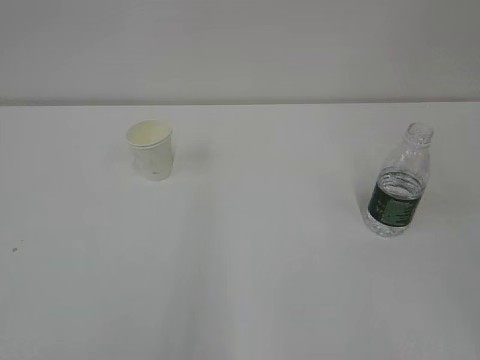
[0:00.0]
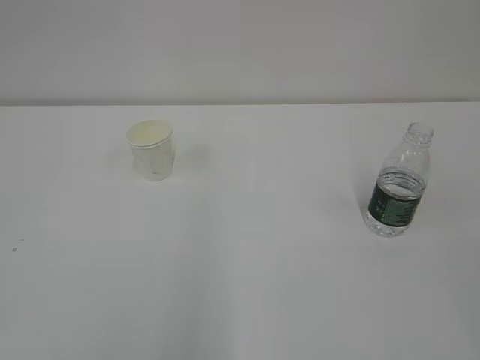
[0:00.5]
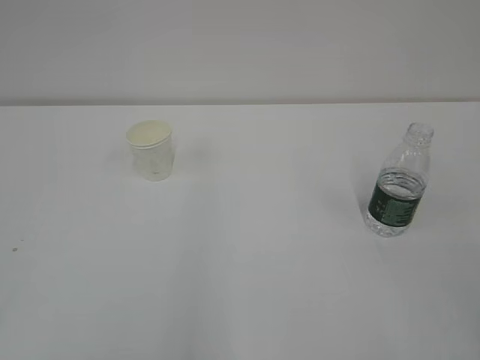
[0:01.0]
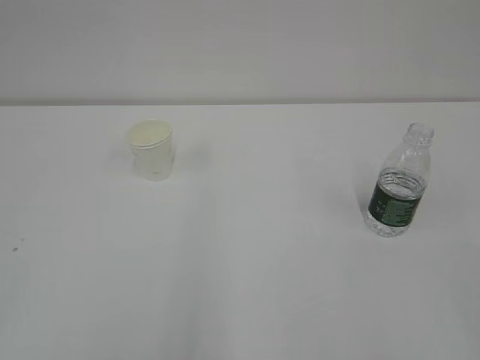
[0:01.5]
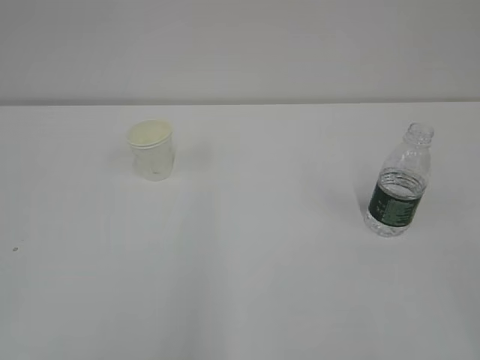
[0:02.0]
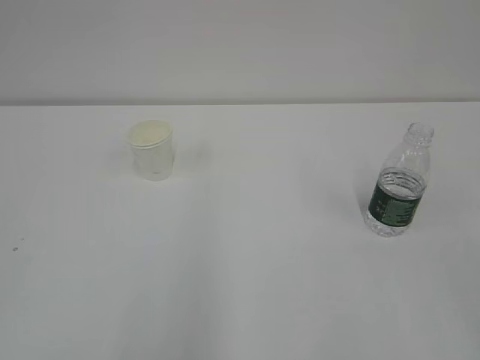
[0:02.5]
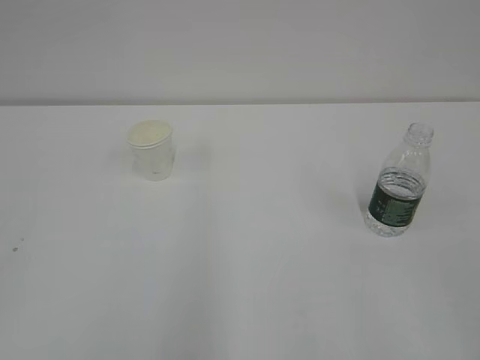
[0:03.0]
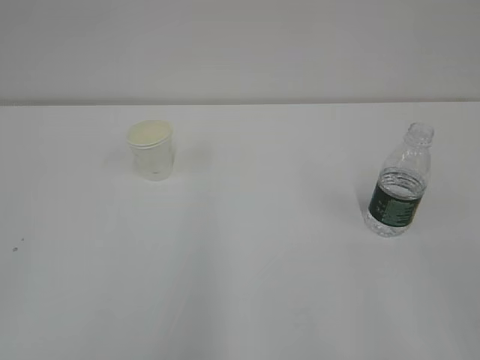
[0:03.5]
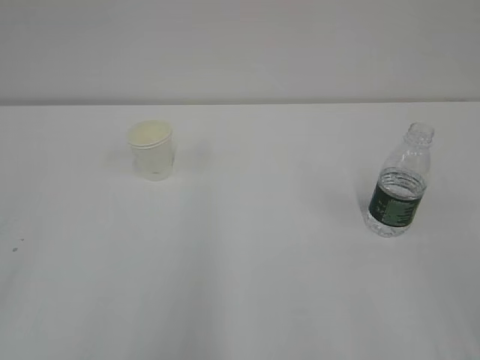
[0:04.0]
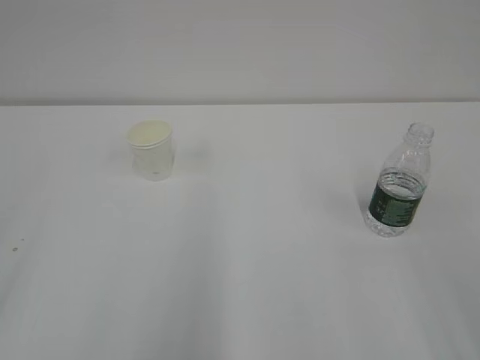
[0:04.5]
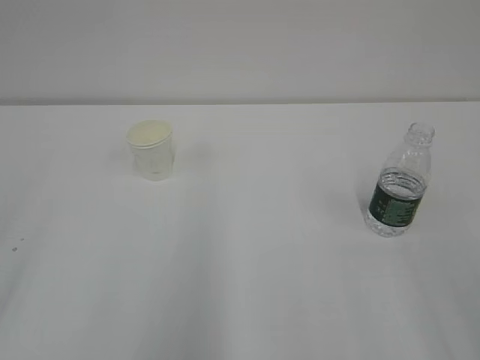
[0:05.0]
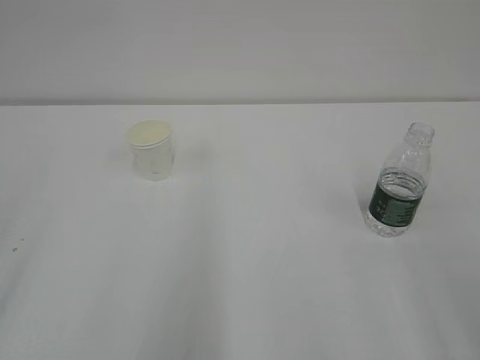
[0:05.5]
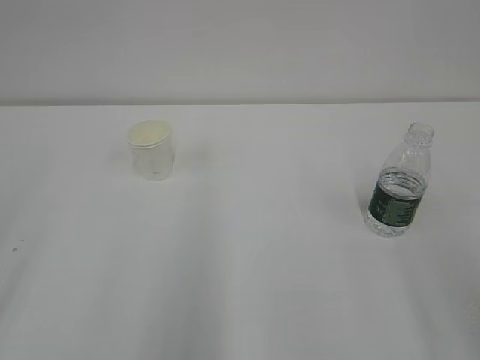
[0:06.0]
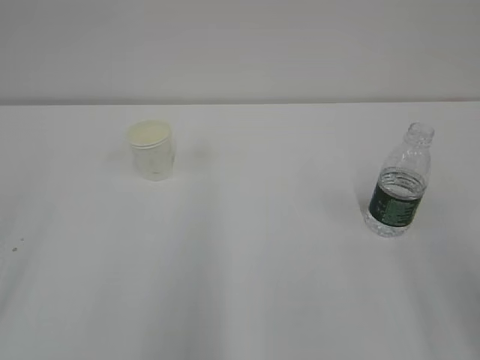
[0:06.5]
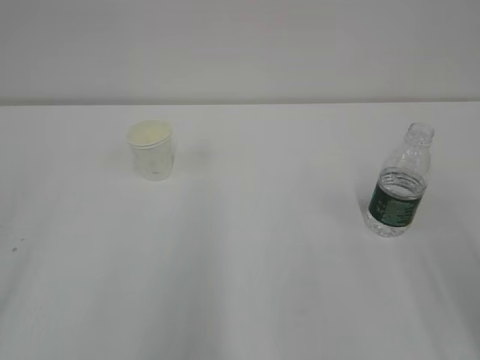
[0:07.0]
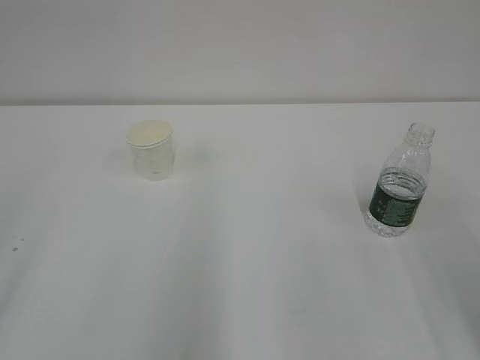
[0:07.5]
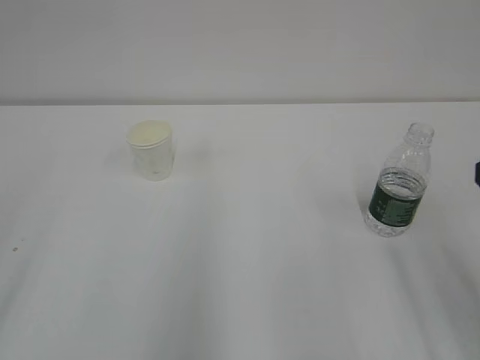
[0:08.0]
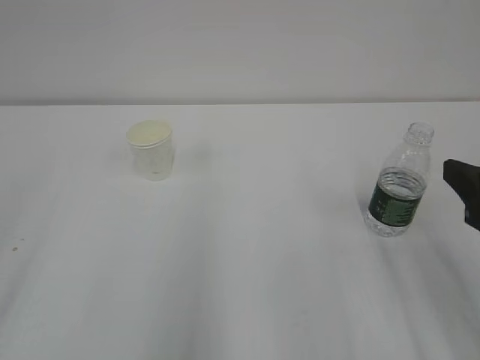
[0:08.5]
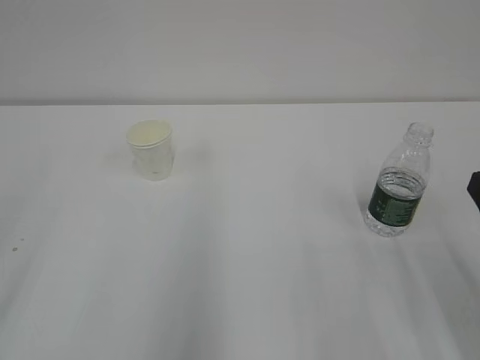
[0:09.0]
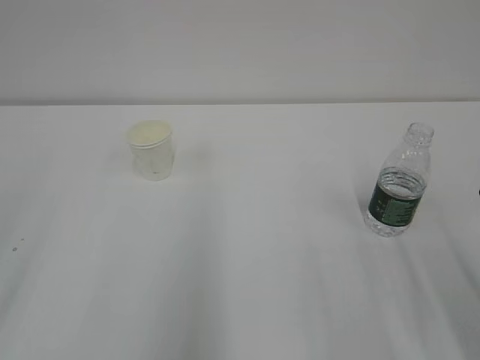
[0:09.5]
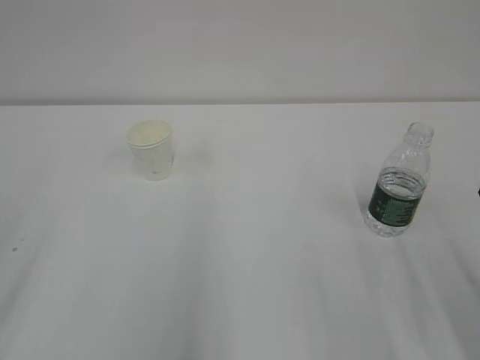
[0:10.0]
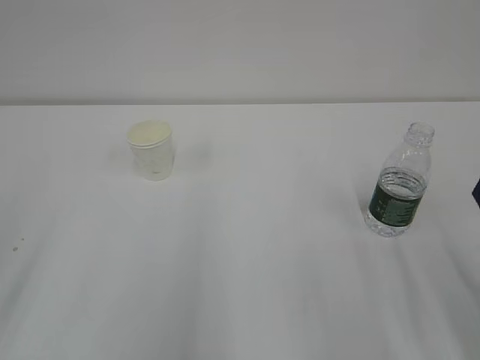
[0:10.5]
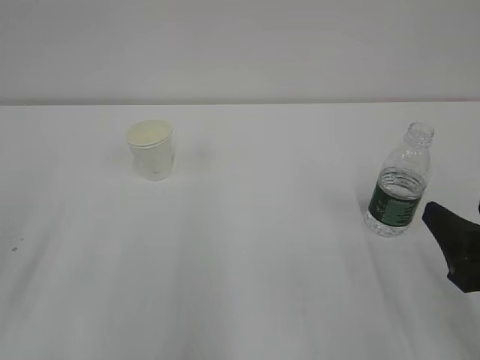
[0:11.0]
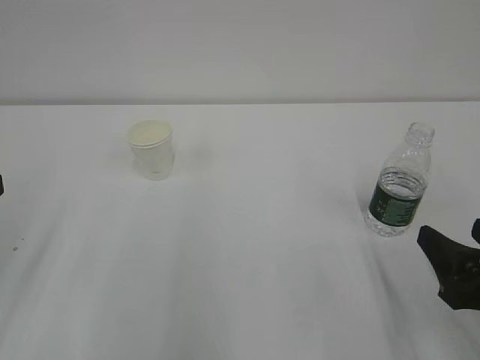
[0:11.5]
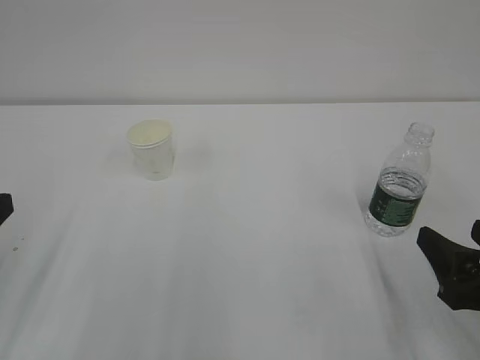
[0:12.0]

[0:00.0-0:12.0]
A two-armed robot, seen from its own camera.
0:10.0 to 0:12.0: The right gripper heads downward, covering roughly 5 cm.

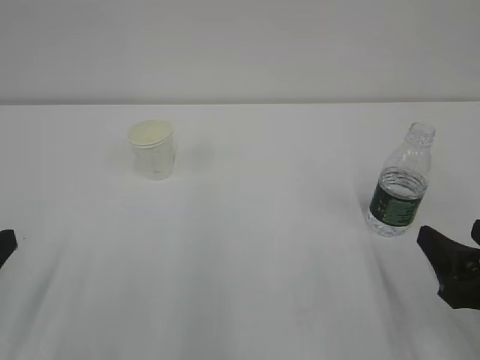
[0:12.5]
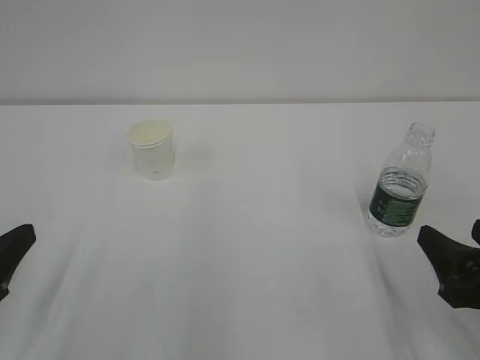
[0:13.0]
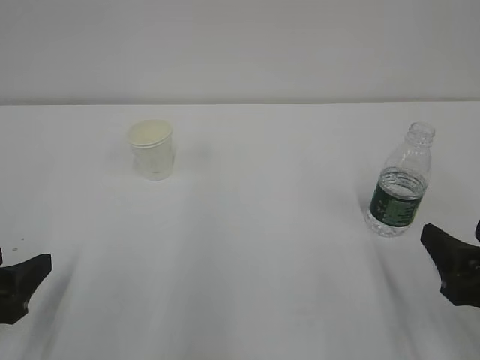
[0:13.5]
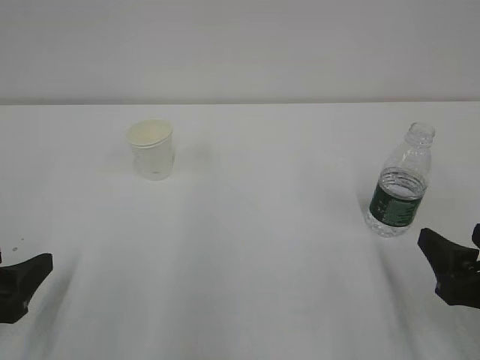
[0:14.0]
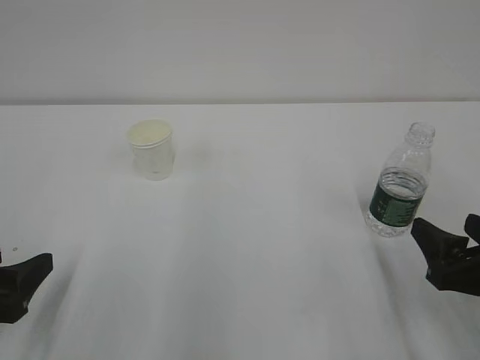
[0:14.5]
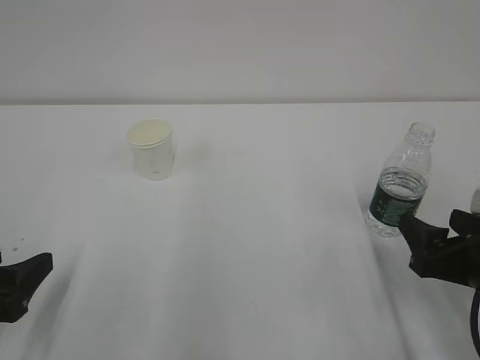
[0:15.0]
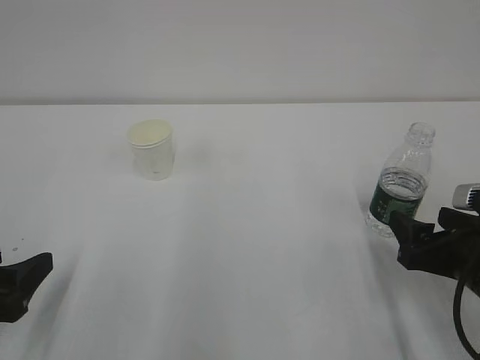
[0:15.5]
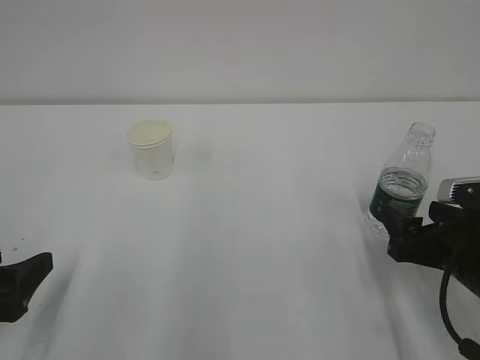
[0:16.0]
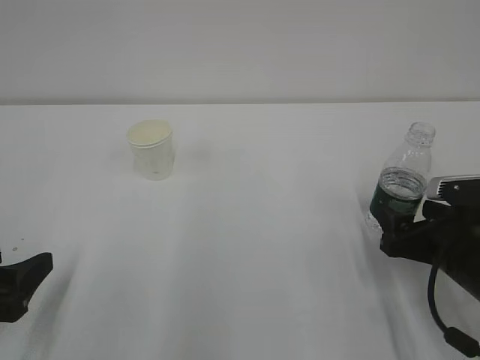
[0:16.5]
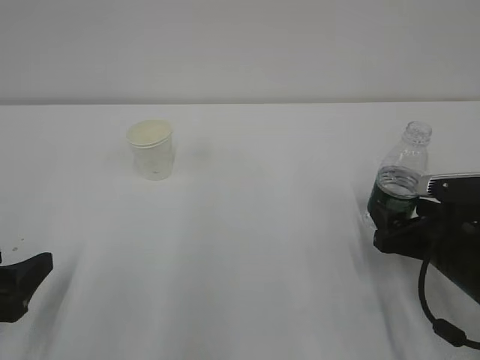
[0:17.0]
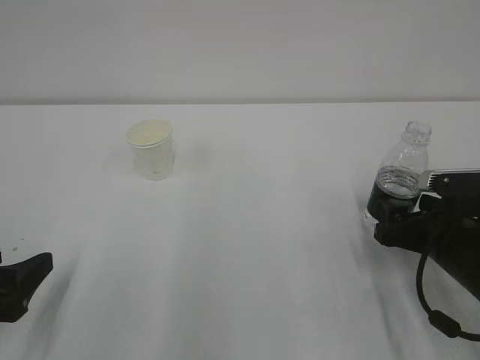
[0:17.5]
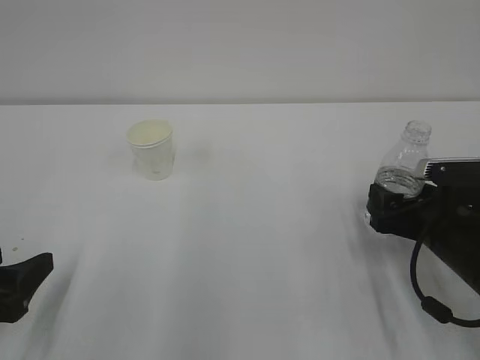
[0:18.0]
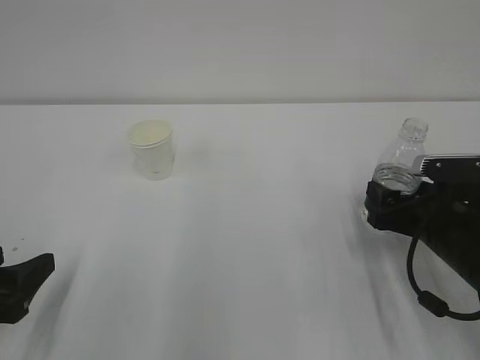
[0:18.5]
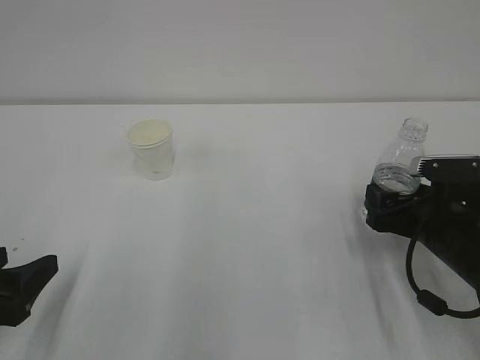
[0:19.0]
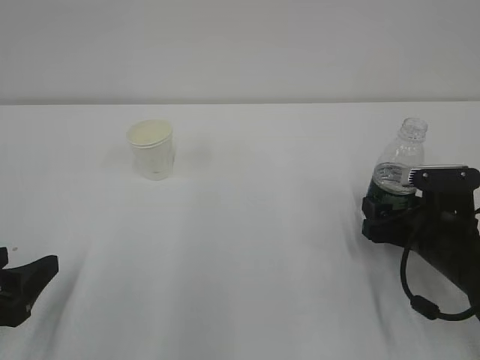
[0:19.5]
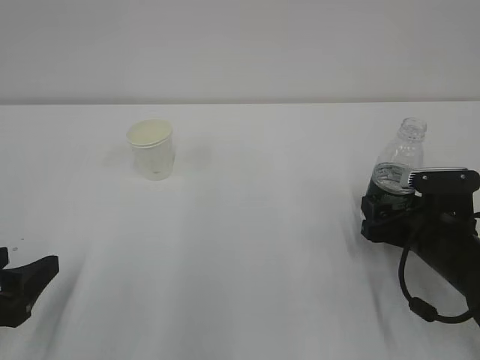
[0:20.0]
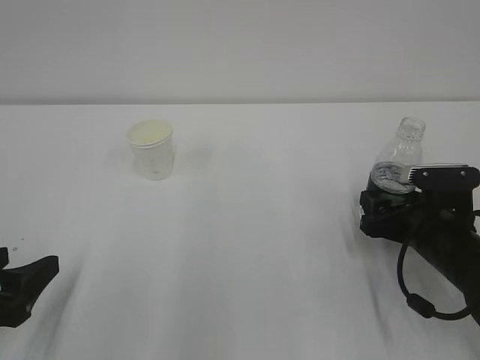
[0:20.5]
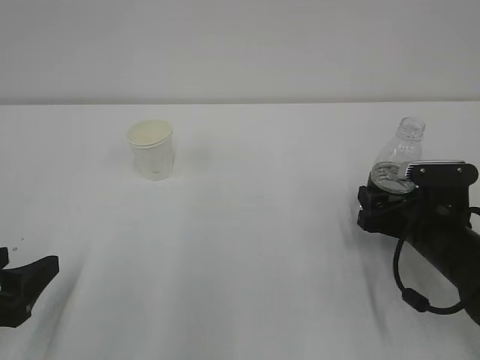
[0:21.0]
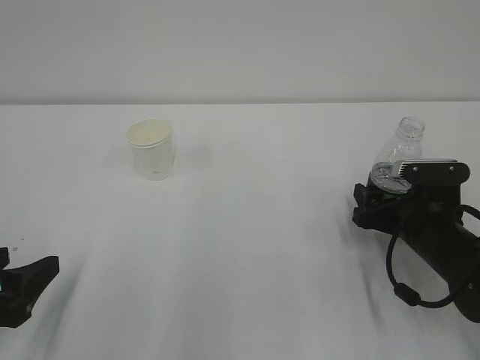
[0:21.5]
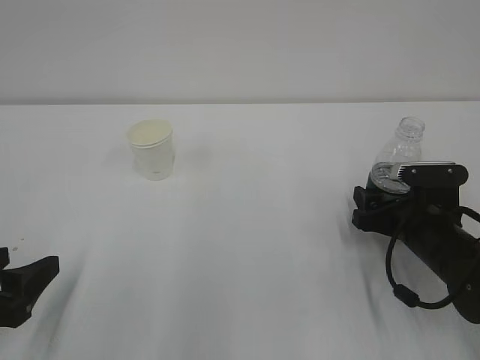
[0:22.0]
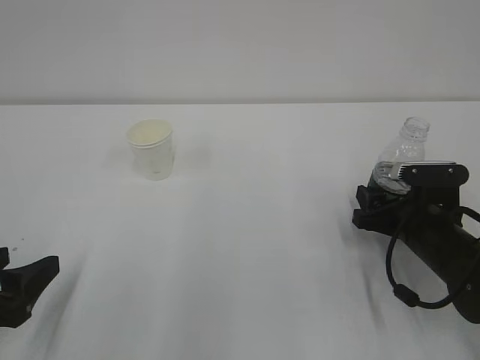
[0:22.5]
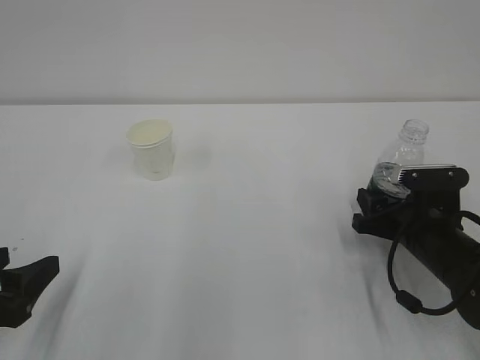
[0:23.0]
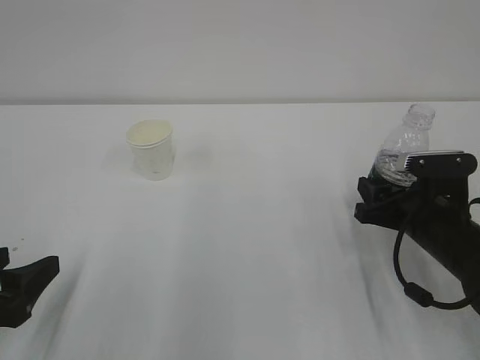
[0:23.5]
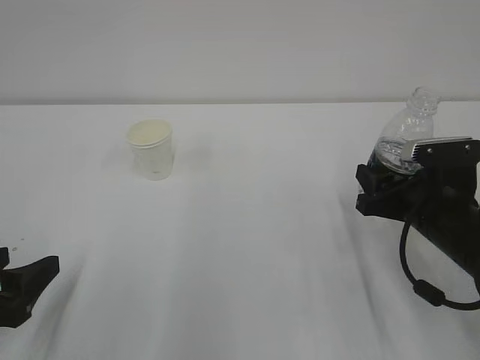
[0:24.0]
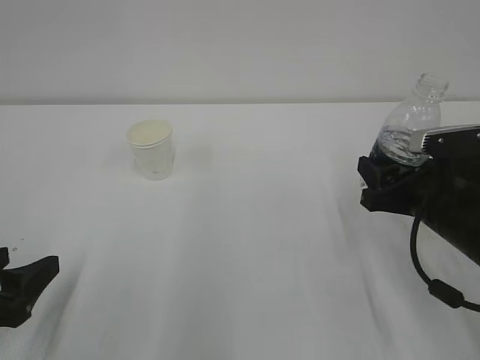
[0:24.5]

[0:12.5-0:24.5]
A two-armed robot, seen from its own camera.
Step, 0:12.5 to 0:22.0: Grab the bottle with right gripper.
0:12.5 to 0:14.5: The grippers stay close to where they were, moving slightly.
0:14.5 to 0:16.5: The right gripper heads forward, covering some 5 cm.
0:16.5 to 0:20.5: There are only small adjustments of the grippers.
0:20.5 to 0:22.5: The right gripper closes.
0:22.5 to 0:24.5: The right gripper travels upward by some 5 cm.

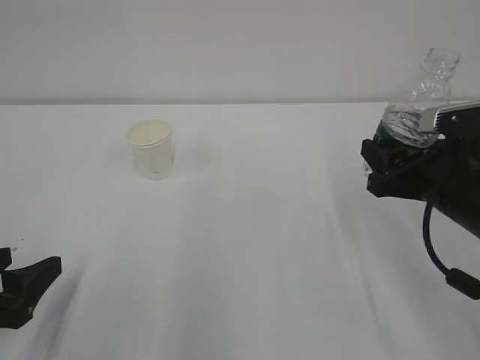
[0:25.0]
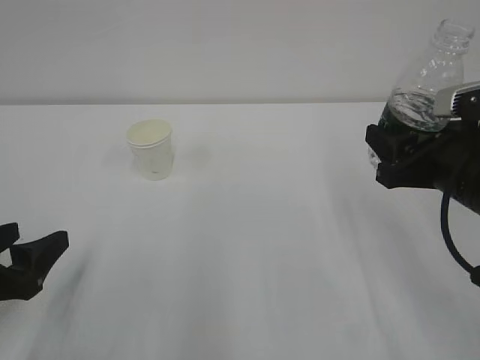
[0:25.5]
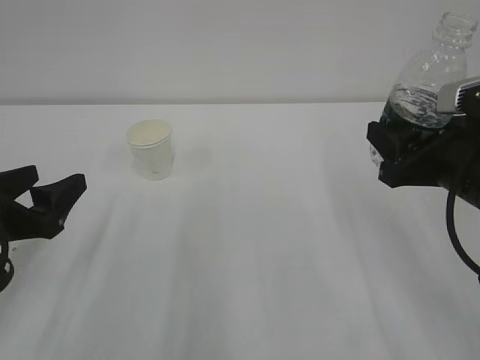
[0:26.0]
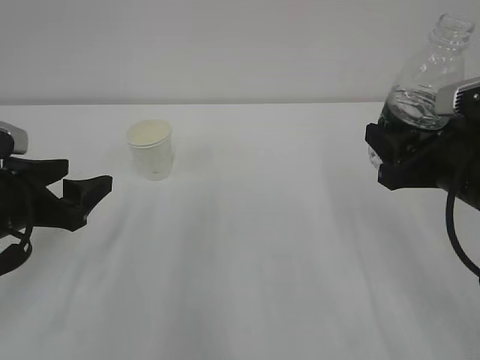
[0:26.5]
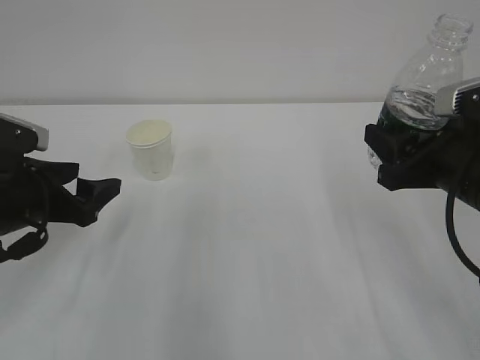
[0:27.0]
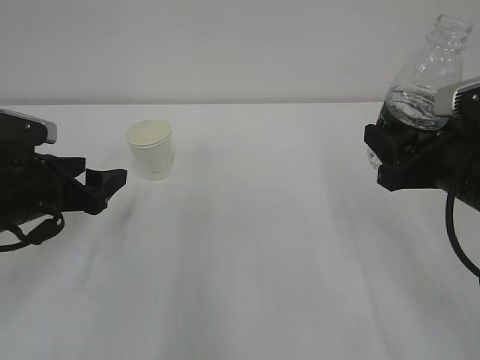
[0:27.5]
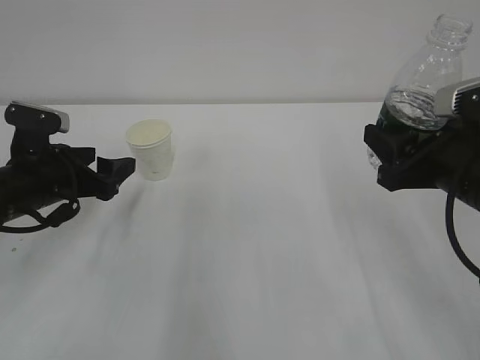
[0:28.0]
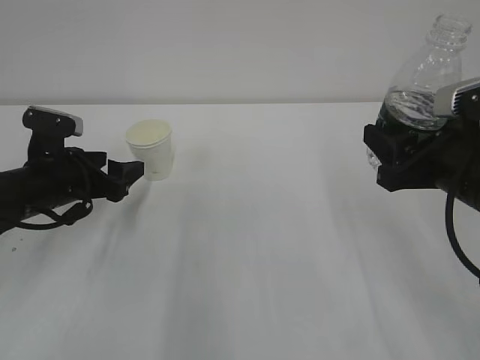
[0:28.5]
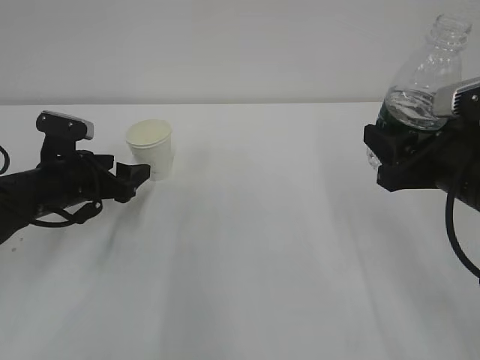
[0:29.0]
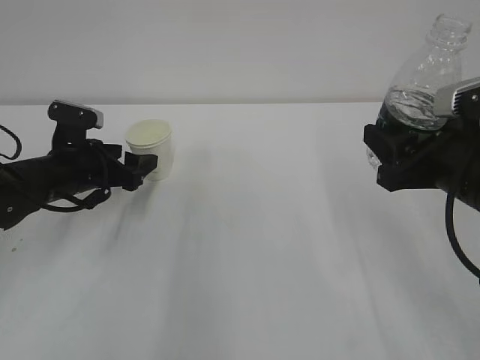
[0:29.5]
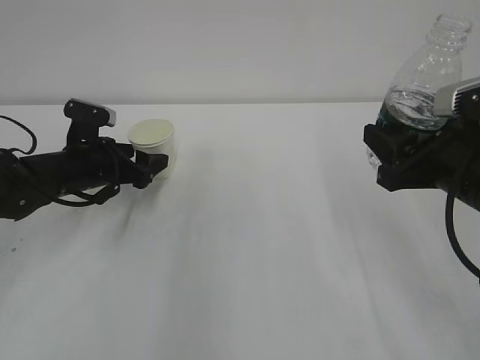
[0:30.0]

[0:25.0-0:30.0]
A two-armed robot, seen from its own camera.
0:25.0 to 0:27.5: The left gripper heads forward, covering approximately 15 cm.
0:27.5 to 0:30.0: The left gripper is displaced forward by about 10 cm.
